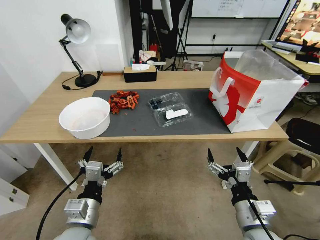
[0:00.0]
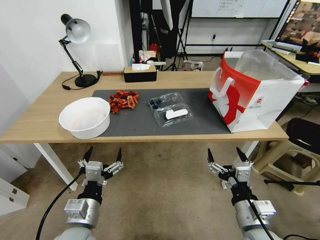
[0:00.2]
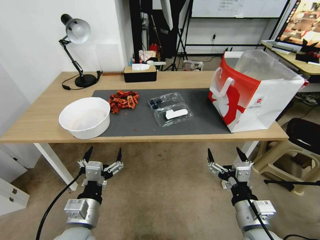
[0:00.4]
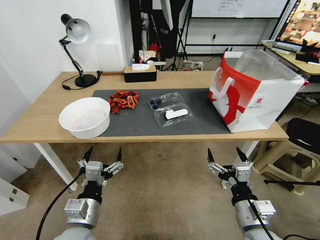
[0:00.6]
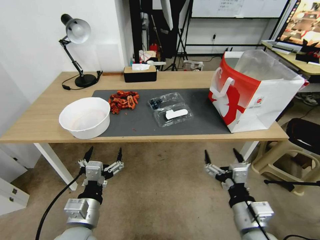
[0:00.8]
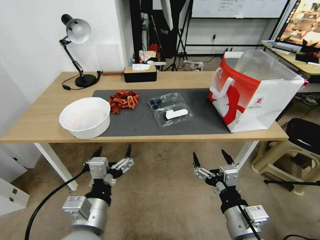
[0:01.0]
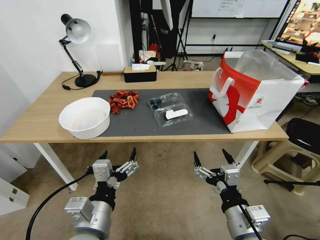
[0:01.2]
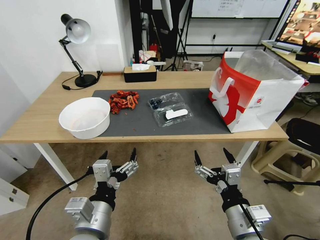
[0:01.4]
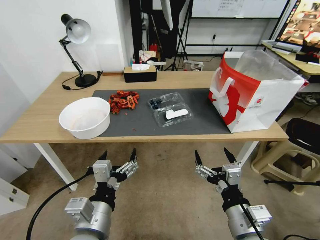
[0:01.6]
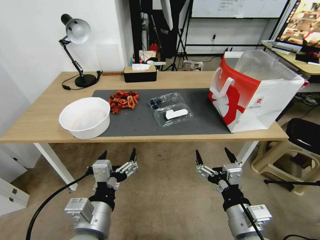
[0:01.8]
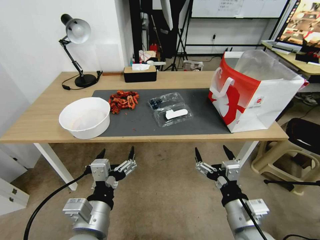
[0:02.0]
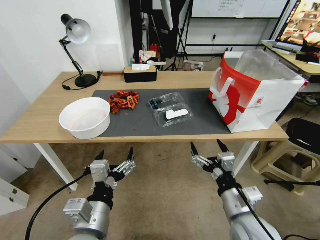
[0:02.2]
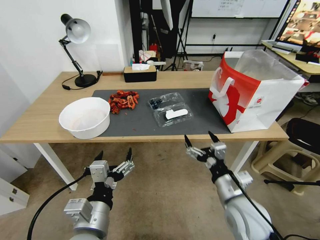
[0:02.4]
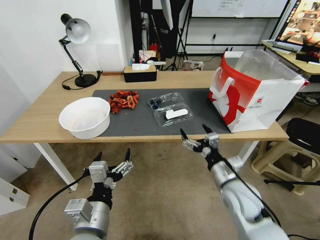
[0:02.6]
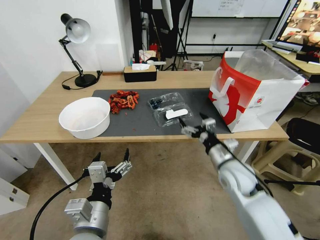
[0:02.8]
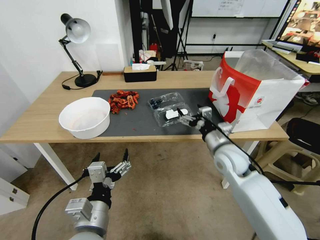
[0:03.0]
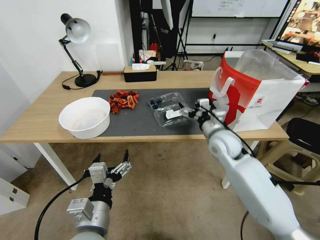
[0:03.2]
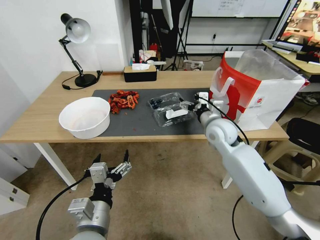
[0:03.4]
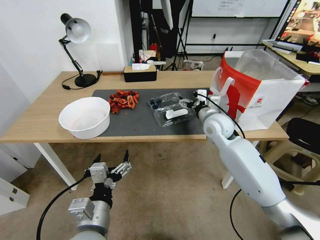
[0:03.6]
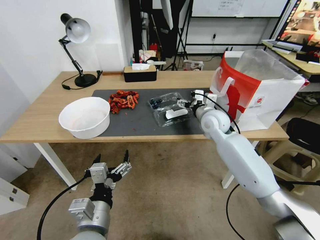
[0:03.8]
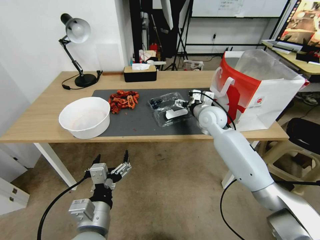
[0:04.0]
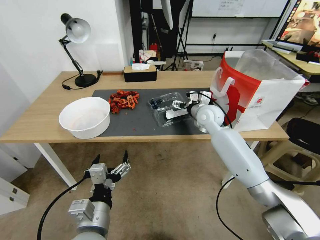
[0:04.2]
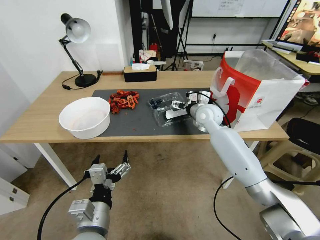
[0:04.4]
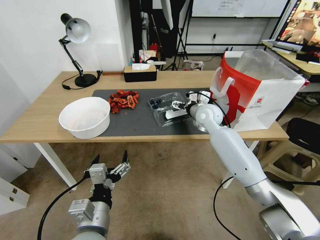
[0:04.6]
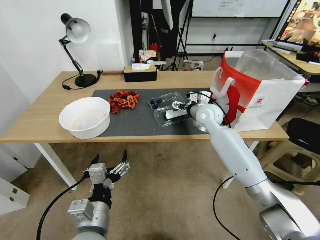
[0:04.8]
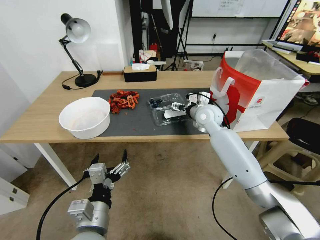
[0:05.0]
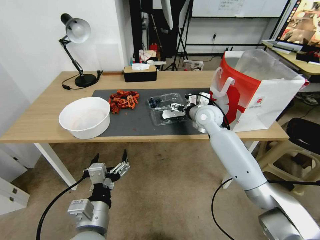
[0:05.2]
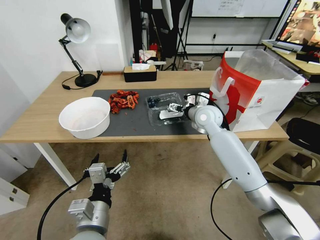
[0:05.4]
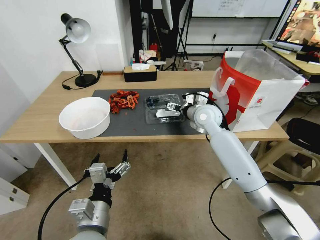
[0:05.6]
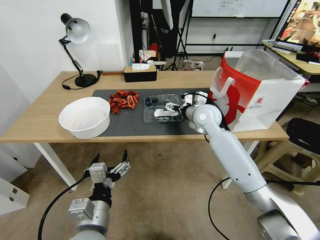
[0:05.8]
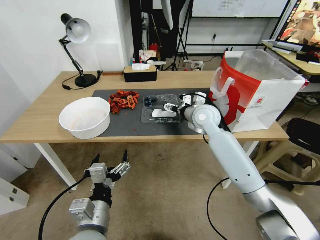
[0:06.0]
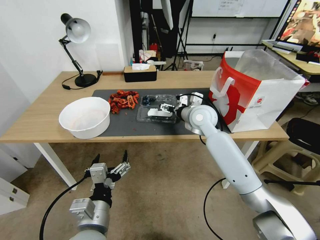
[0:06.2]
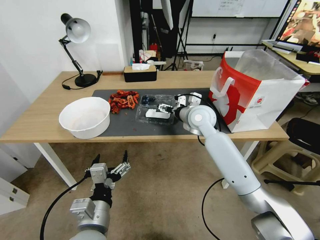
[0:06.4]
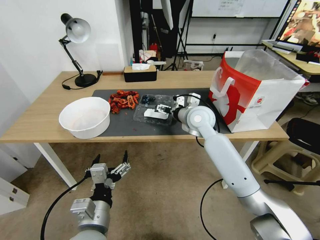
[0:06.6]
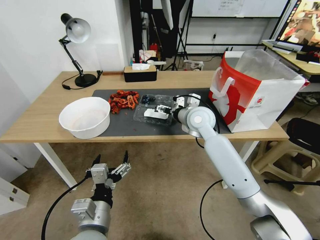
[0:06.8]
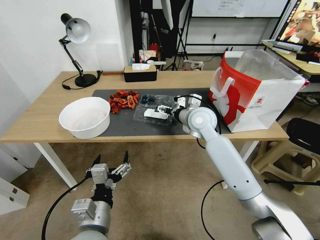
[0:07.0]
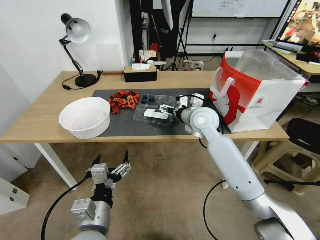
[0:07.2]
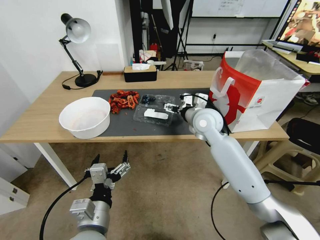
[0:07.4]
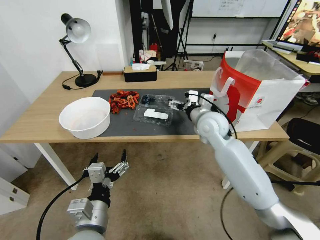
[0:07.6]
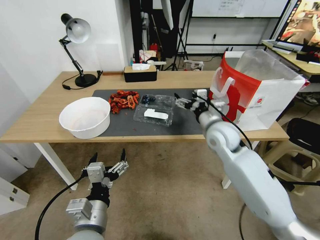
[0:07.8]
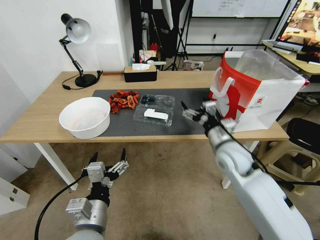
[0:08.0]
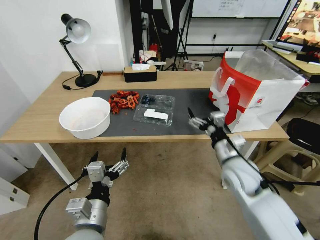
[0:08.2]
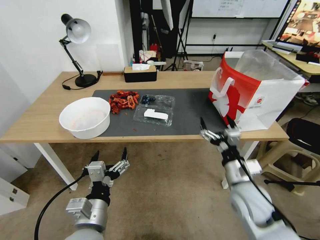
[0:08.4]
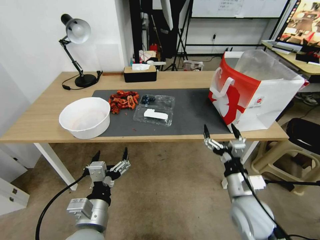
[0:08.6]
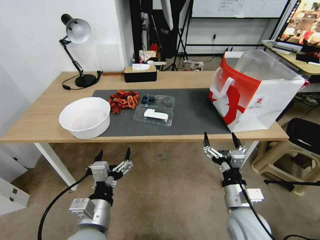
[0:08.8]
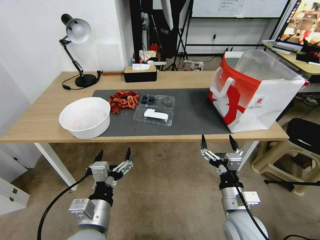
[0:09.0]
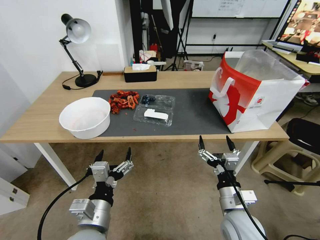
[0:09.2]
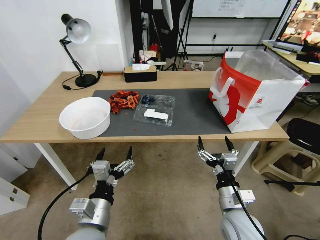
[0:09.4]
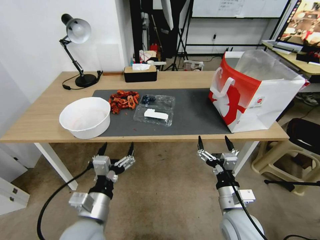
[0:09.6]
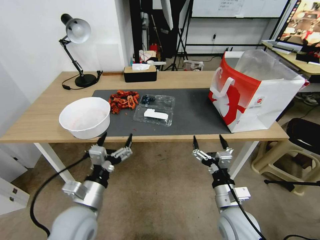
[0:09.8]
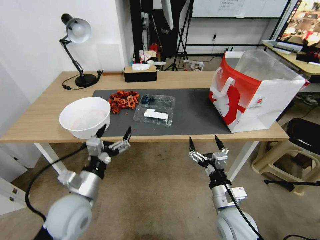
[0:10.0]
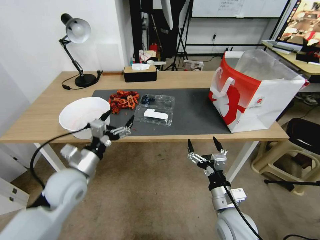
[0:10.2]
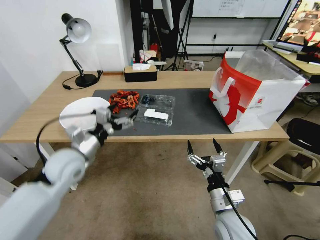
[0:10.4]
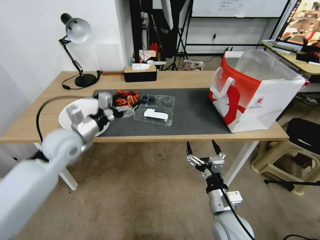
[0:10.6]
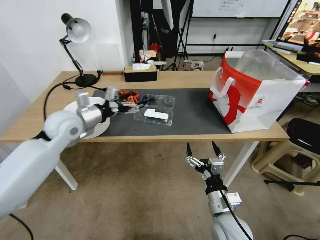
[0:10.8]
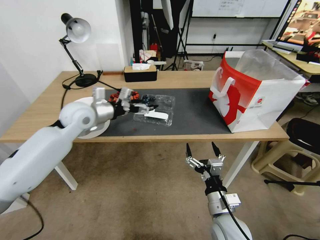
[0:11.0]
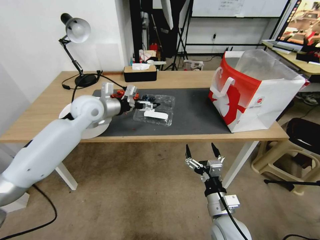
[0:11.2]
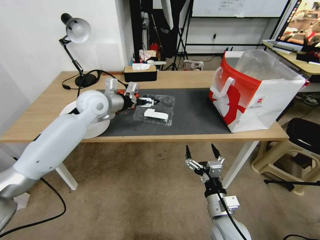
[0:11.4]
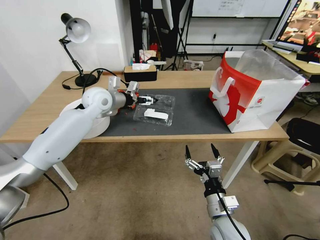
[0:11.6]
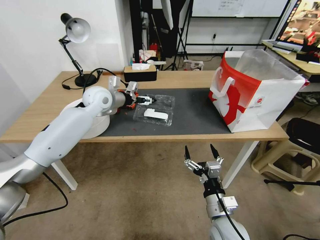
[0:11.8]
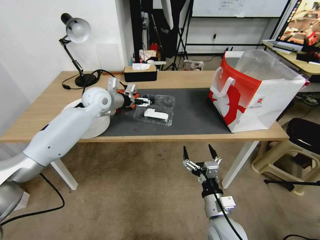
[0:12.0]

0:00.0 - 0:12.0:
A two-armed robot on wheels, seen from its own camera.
Task of the whole recording: Close the takeout container lid, then place the container into the takeout bag.
0:01.6 - 0:03.0: The right gripper goes some 25 cm forward.
0:03.0 - 0:04.4: The right gripper is displaced forward by some 15 cm.
0:04.4 - 0:06.0: The grippers stay close to where they were, moving slightly.
0:06.0 - 0:07.6: The grippers stay close to where they were, moving slightly.
0:07.6 - 0:09.0: The right gripper goes roughly 30 cm backward and downward.
0:09.0 - 0:10.4: The left gripper goes about 20 cm forward and to the left.
0:10.4 - 0:12.0: The left gripper moves forward, roughly 25 cm.

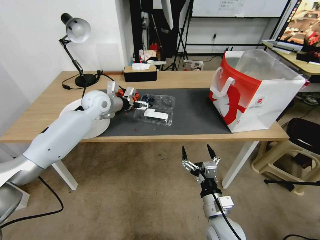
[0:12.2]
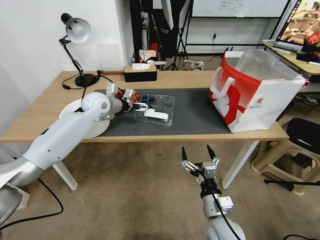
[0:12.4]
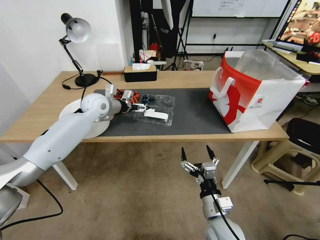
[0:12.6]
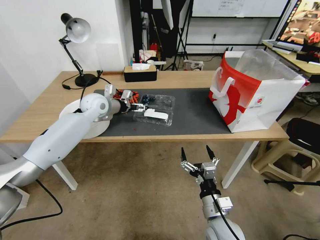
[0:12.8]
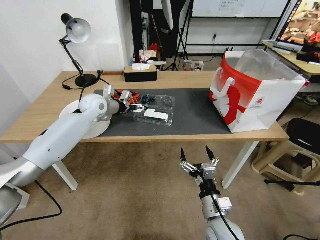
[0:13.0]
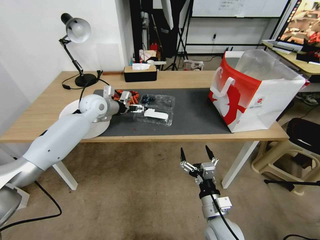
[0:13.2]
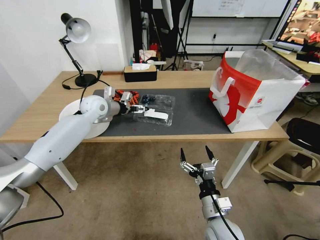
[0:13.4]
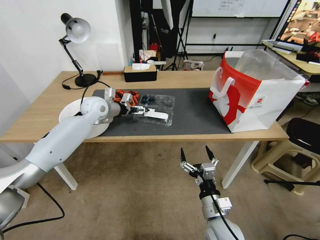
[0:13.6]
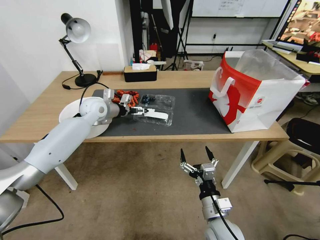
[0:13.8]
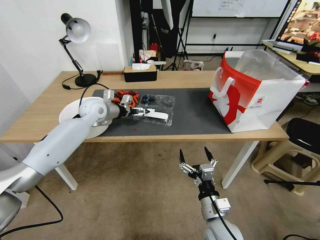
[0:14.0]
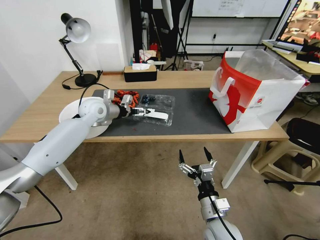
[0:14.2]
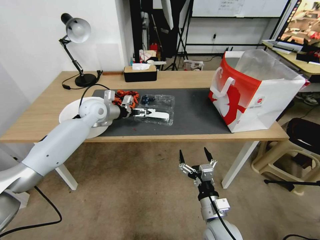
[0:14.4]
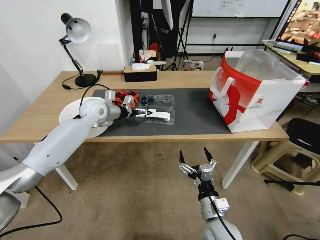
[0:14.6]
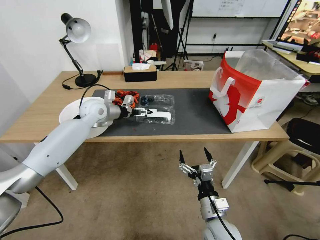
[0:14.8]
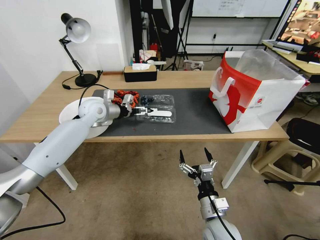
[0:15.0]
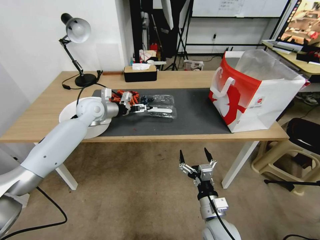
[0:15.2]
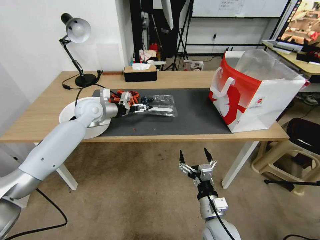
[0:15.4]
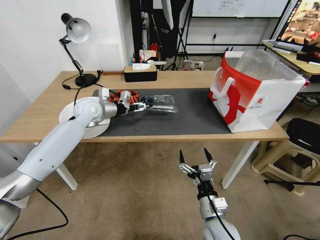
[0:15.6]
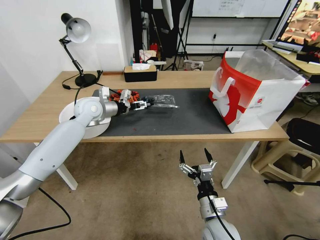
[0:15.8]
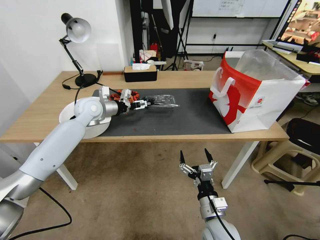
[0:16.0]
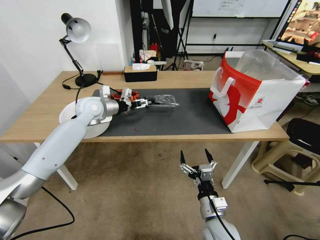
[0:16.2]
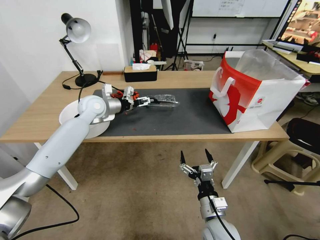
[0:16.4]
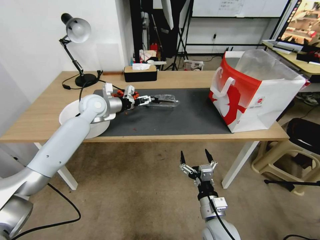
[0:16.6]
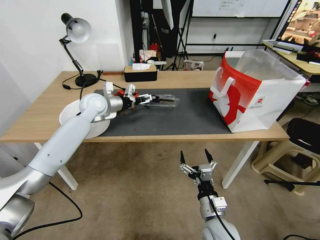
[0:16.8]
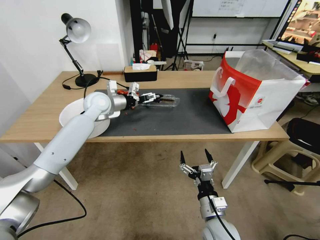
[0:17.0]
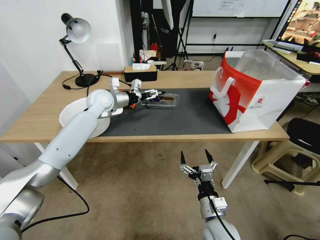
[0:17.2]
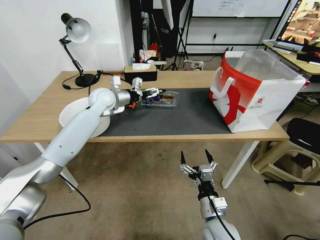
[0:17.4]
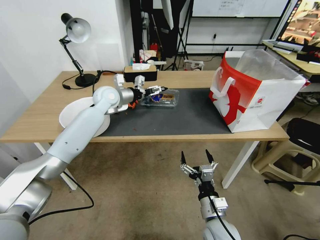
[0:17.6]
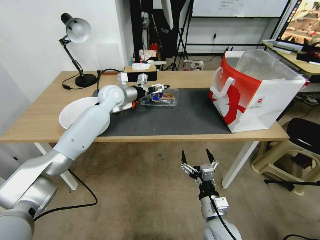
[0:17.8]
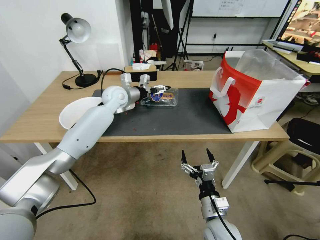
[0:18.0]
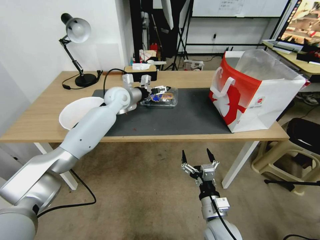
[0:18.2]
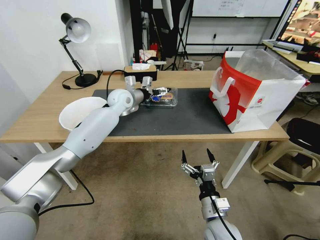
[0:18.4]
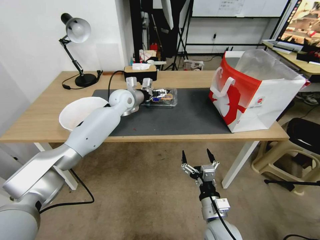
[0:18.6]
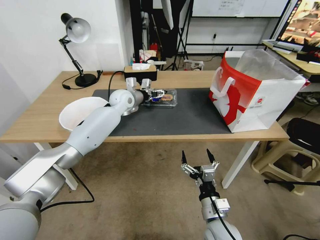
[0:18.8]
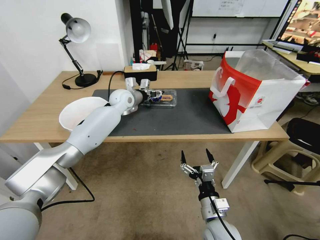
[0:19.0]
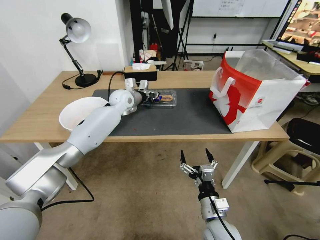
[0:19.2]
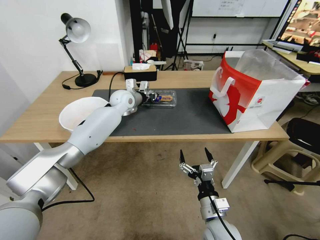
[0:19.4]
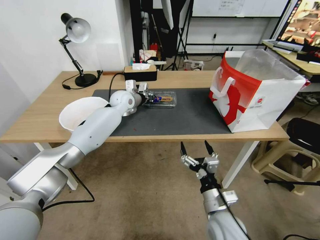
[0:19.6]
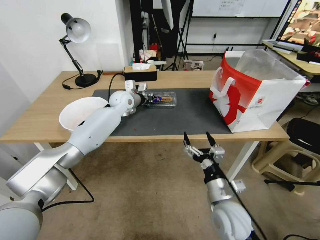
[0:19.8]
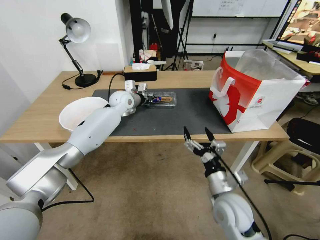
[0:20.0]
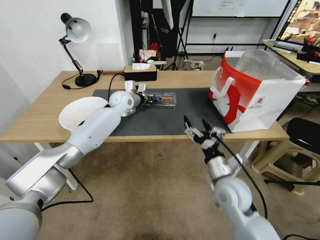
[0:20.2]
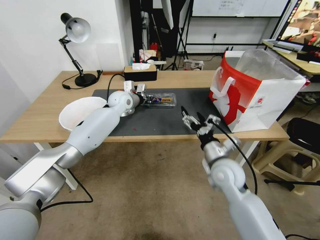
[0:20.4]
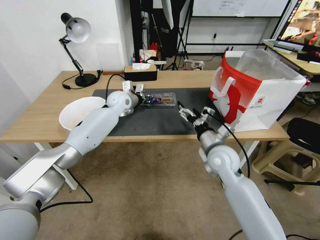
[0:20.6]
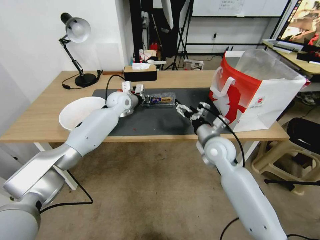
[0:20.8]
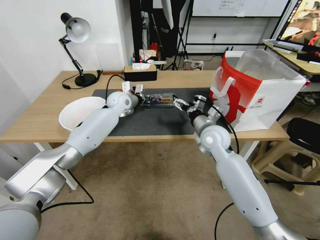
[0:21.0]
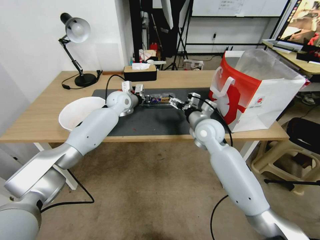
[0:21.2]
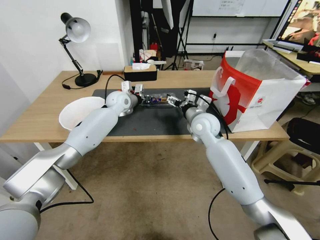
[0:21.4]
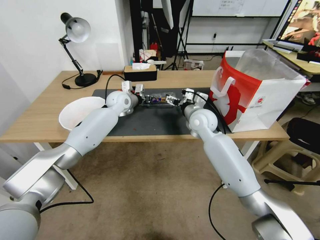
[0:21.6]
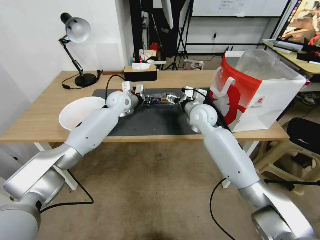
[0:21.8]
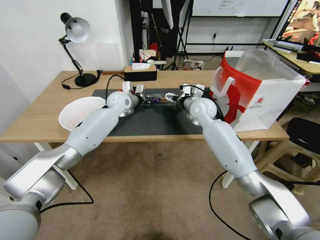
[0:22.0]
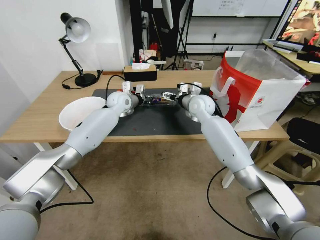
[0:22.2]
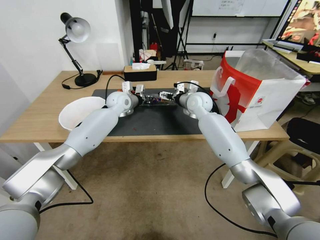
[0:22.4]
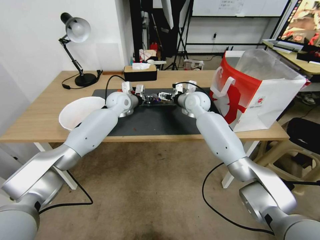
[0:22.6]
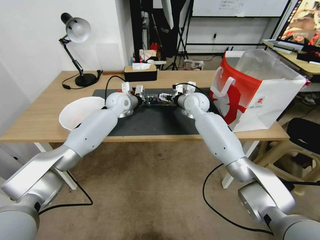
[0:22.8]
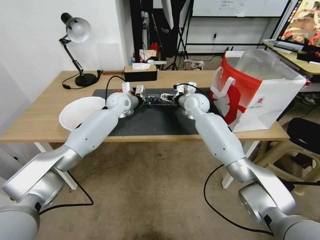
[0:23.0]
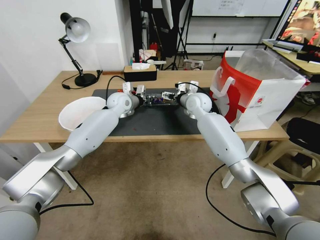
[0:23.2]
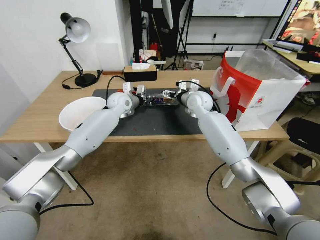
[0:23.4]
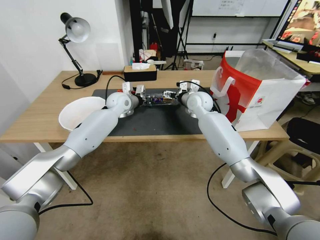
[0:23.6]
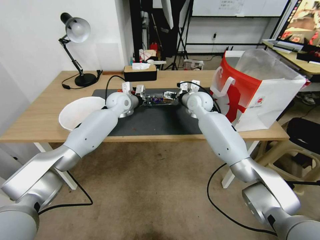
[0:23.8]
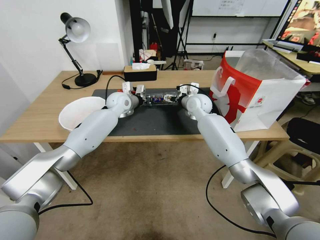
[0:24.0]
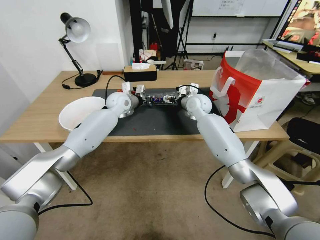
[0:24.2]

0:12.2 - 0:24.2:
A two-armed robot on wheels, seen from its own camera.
Task of the whole recording: Close the takeout container lid, then place the container into the takeout bag.
0:12.2 - 0:15.2: The grippers move only a little.
0:15.2 - 0:16.6: The grippers make only small movements.
0:16.6 - 0:18.2: The left gripper heads to the right, covering some 10 cm.
0:18.2 - 0:19.8: The left gripper closes its fingers. Meanwhile the right gripper changes place by some 5 cm.
0:19.8 - 0:21.2: The right gripper heads forward and upward, covering approximately 25 cm.
0:21.2 - 0:22.6: The right gripper goes about 15 cm forward.
0:22.6 - 0:24.2: The grippers move only a little.
